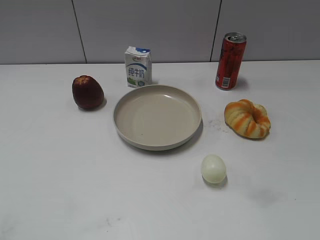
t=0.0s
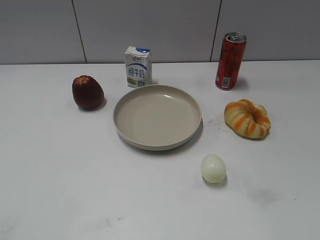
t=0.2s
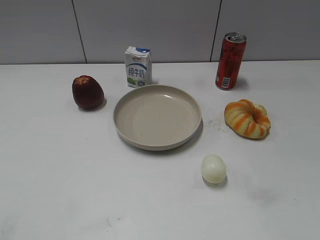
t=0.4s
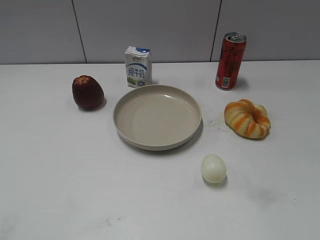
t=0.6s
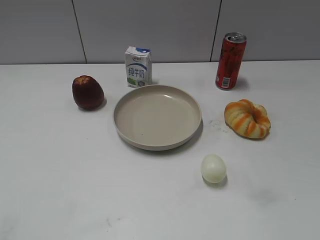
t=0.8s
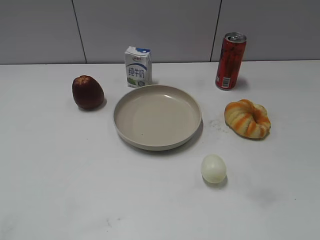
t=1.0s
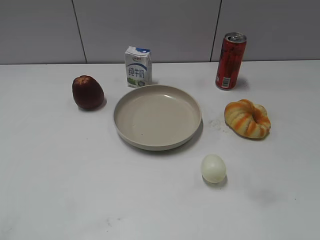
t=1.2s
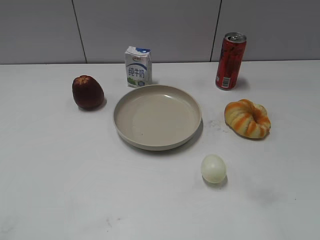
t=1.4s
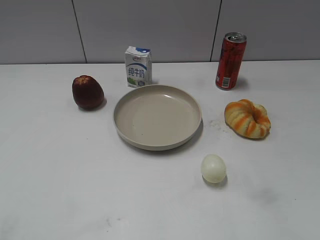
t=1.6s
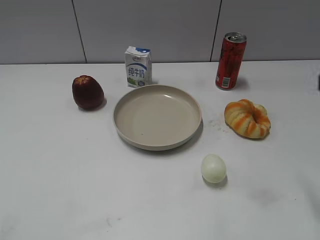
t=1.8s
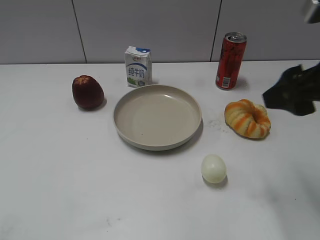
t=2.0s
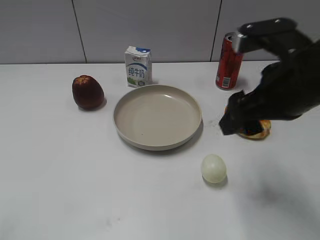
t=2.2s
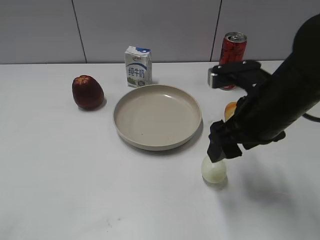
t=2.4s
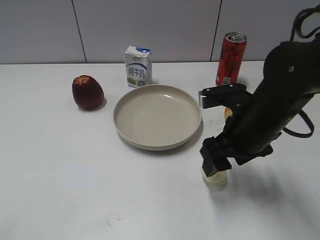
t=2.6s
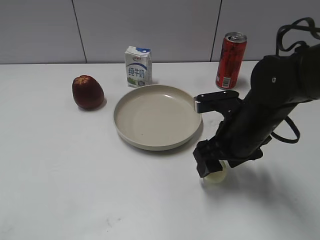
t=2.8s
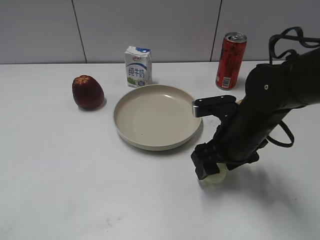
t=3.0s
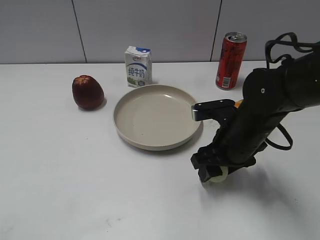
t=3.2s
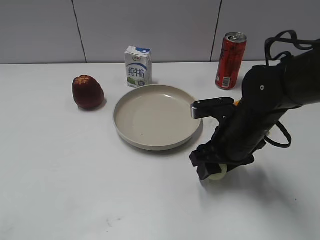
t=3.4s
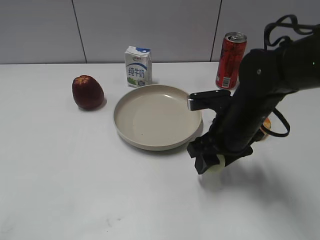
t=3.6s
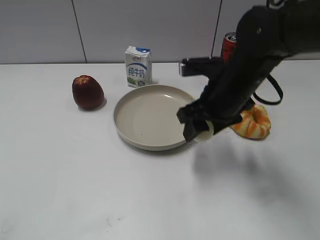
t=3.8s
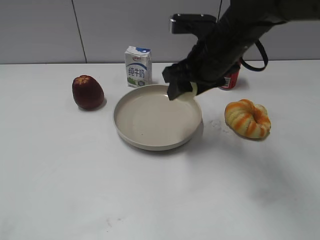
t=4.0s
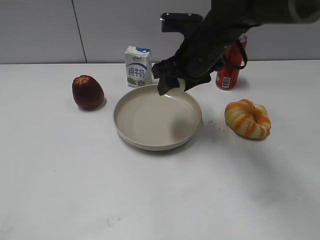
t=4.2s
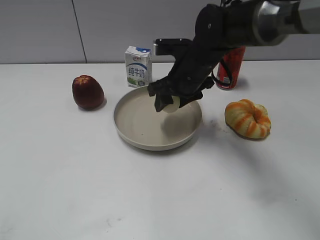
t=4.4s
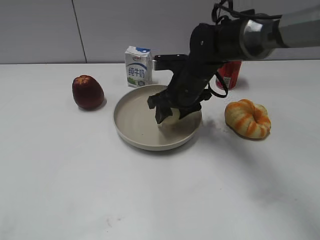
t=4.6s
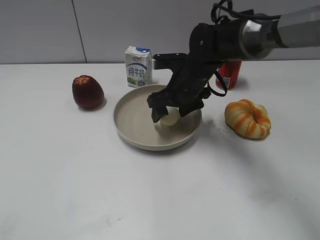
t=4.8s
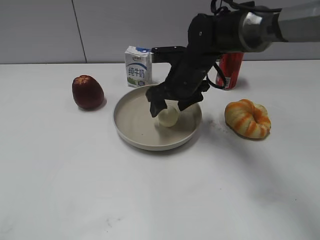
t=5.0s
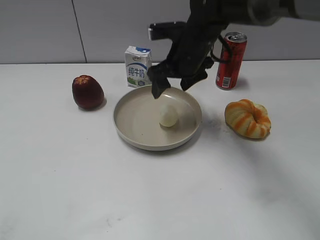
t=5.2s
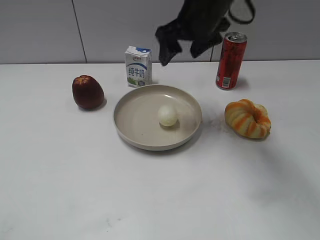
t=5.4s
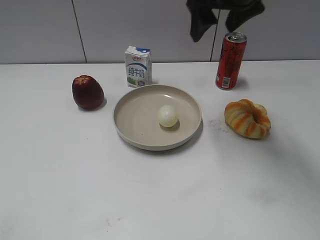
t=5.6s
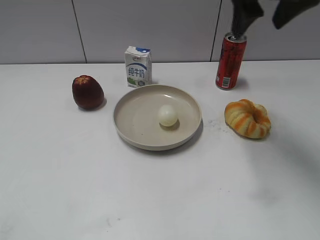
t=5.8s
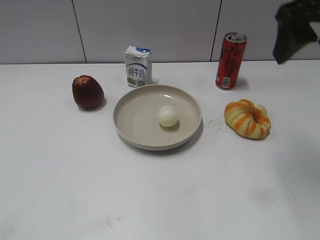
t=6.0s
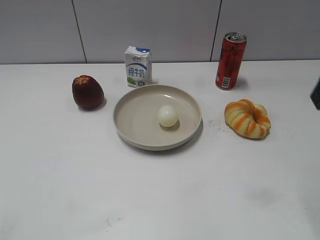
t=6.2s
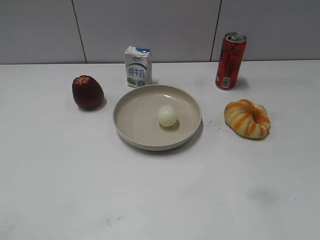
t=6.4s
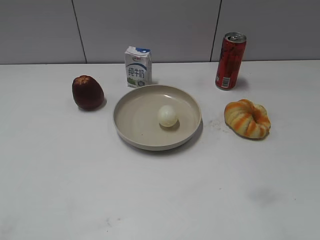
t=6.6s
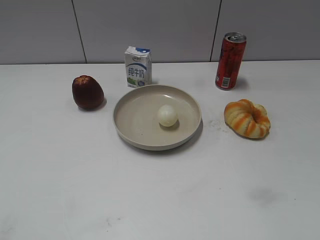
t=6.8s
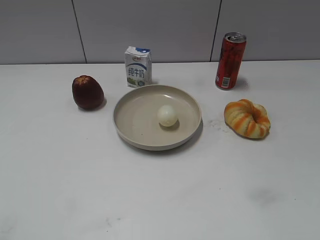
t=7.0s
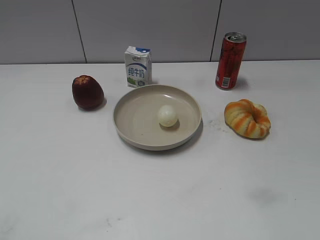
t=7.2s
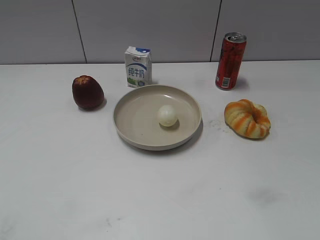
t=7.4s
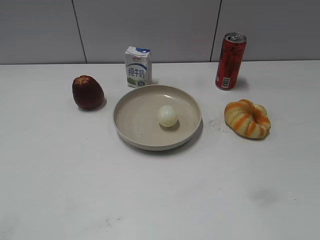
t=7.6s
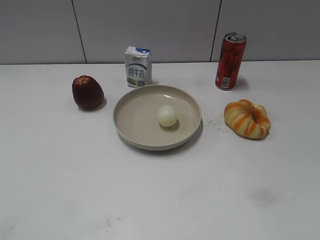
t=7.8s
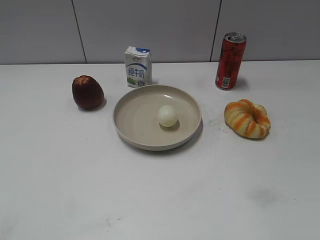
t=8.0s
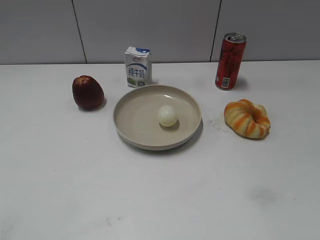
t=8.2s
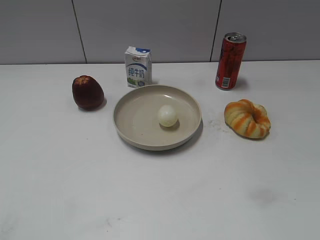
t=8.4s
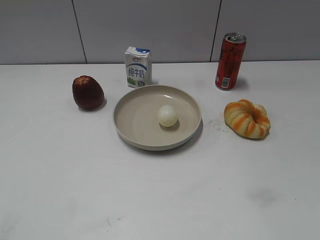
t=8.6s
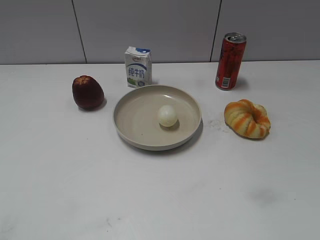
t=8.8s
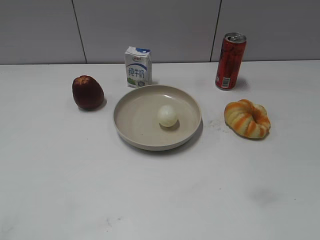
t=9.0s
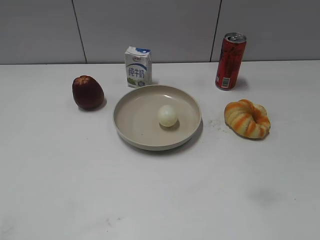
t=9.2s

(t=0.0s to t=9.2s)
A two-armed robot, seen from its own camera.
Step, t=1.0s - t=3.2s: Grasp the egg with right gripper.
Step, t=3.4s - t=5.2s: Place the egg on the plate with right gripper.
t=1.6s - t=3.0s: The right gripper goes some 30 cm downward, forward and to the left.
t=3.0s - t=4.6s: The right gripper shifts approximately 15 cm forward and to the left, and closes its fingers.
t=4.6s - t=6.2s: The right gripper goes about 30 cm upward, backward and to the right, and opens up.

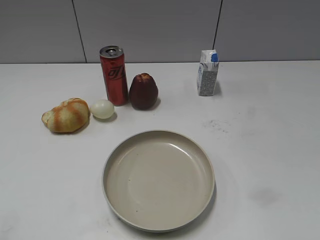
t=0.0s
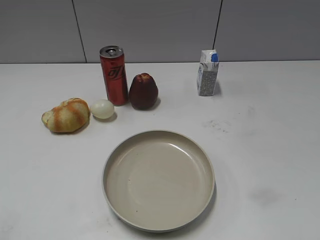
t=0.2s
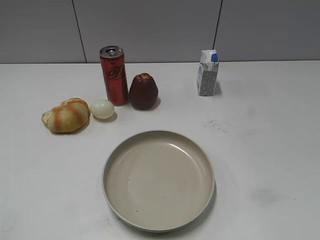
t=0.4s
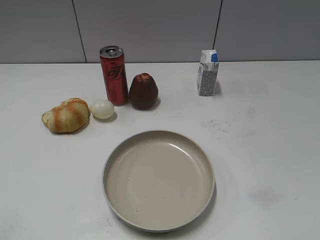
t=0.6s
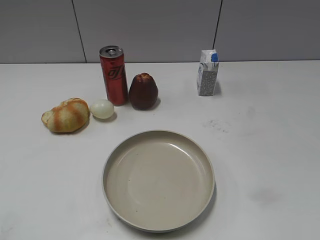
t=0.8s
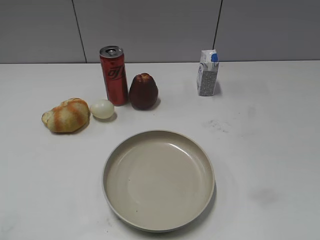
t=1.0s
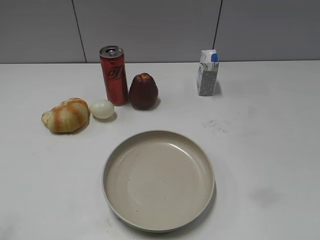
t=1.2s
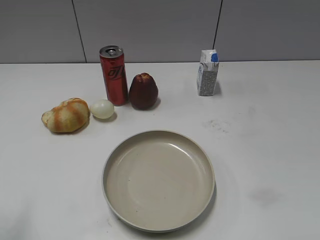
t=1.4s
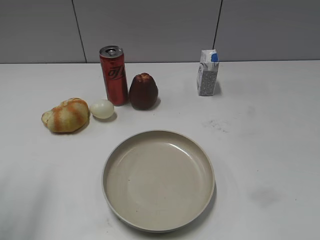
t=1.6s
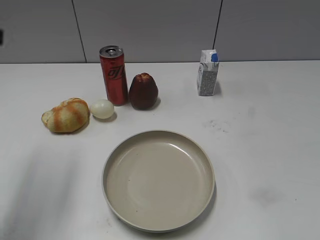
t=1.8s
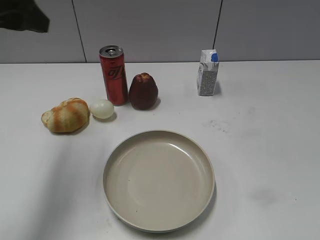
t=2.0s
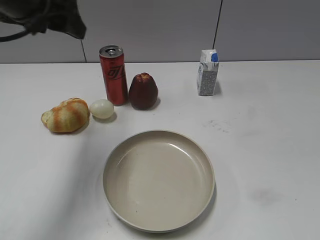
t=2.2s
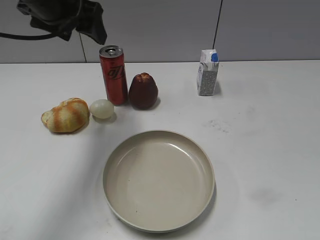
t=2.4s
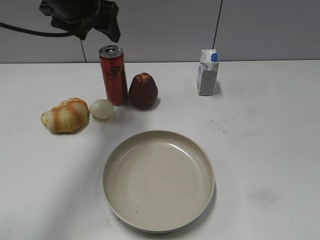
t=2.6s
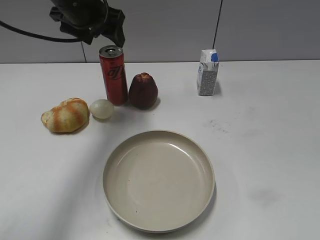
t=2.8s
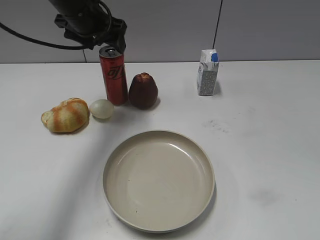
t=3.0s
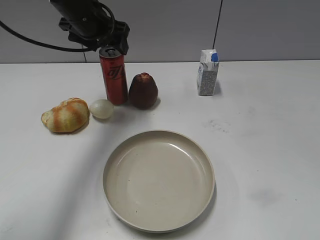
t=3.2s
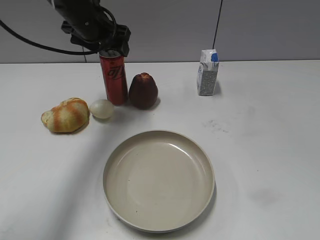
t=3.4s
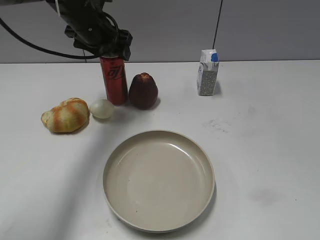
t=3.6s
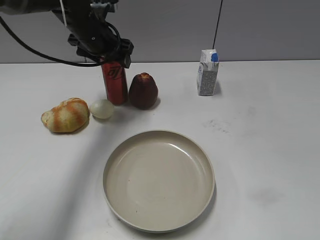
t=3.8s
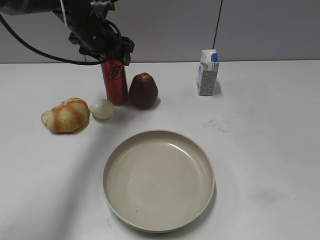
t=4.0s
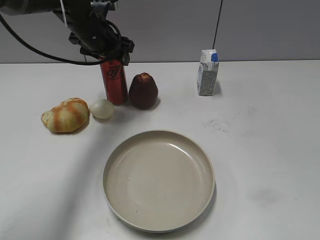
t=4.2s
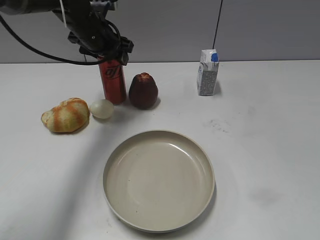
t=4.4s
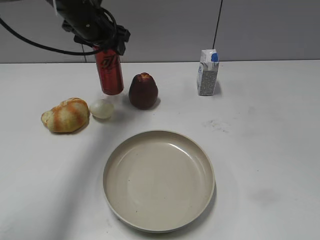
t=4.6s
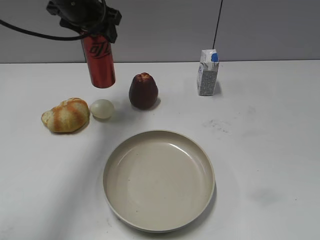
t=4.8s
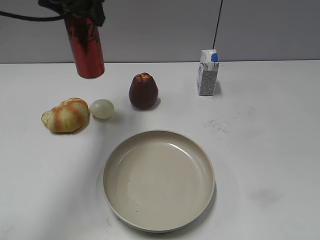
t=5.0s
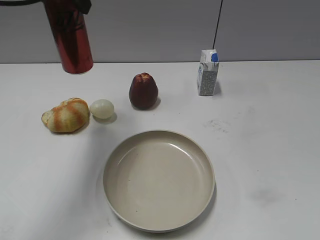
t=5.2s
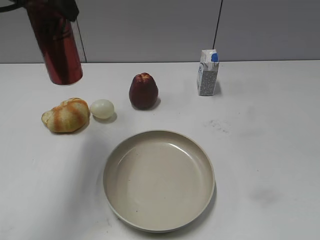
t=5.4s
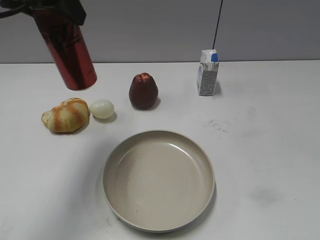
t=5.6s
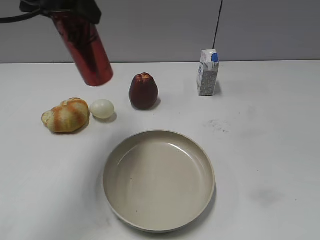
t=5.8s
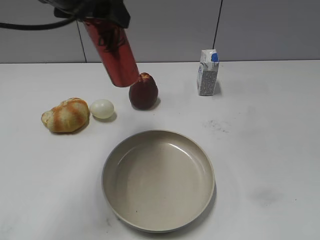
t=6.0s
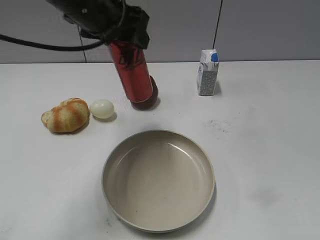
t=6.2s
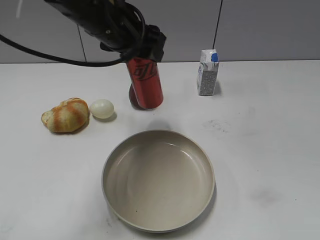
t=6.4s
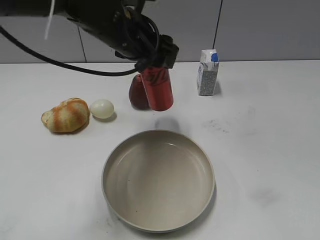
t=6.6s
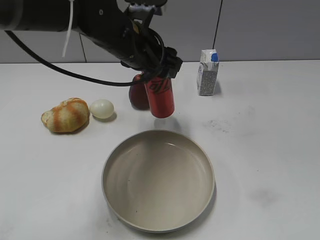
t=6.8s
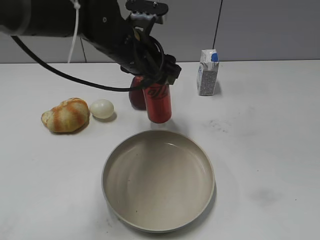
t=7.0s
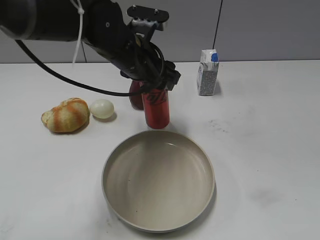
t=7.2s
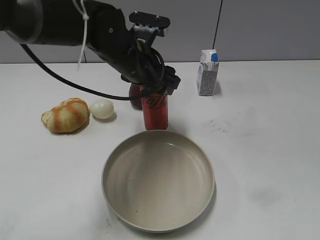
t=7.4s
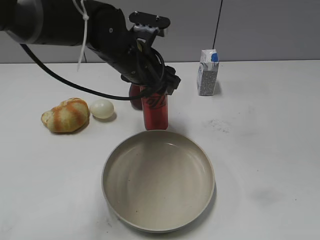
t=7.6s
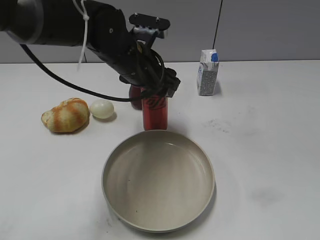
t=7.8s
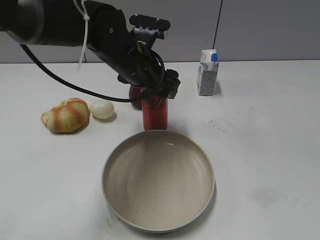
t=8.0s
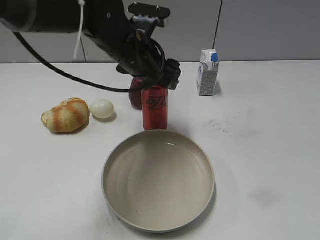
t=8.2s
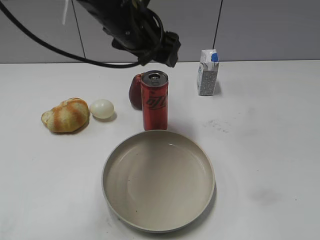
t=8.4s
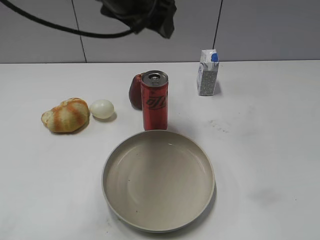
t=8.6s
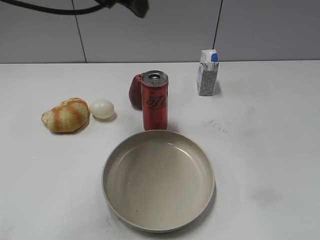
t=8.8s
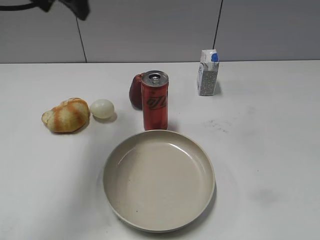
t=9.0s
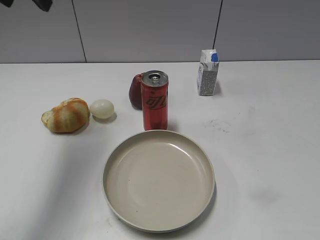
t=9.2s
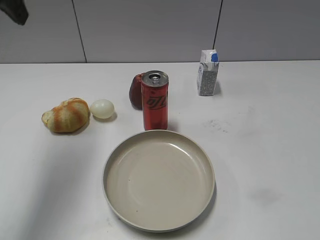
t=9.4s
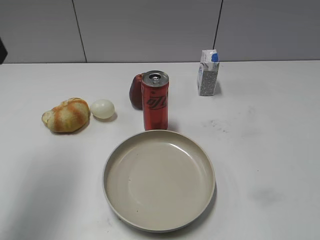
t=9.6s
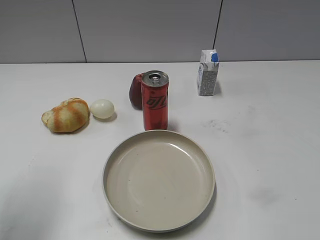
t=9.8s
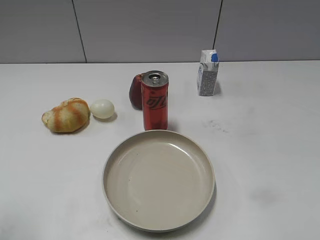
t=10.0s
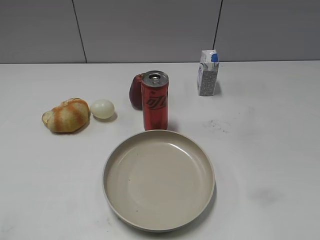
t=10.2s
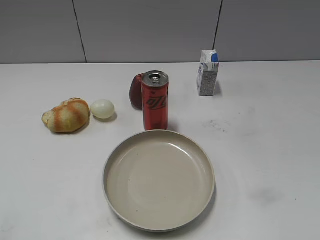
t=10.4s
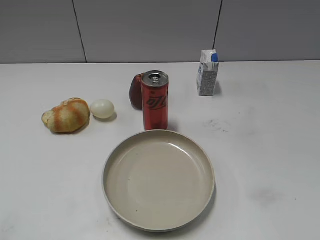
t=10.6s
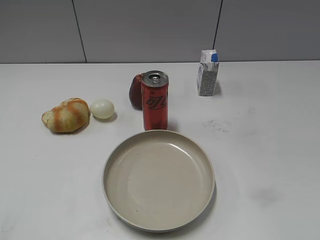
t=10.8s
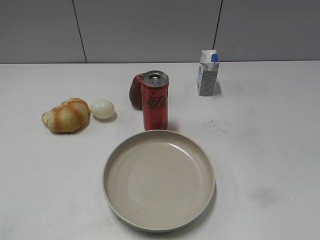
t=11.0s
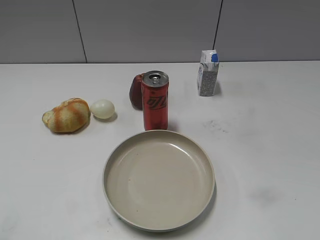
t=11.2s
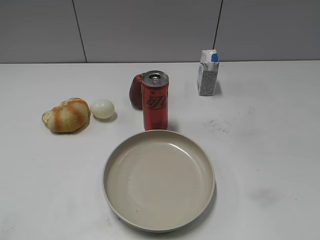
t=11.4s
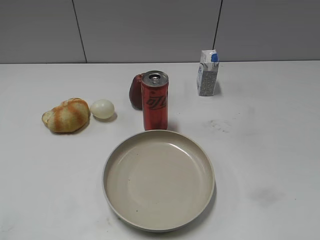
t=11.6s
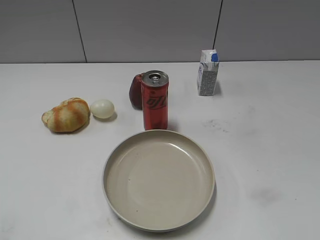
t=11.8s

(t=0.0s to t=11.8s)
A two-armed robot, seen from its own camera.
Step, t=0.6s - t=4.2s: Grasp the cola with left gripper.
Step, t=4.4s - t=8.4s: Place the cola on the table with left gripper.
t=1.4s - t=3.0s: The left gripper goes approximately 35 cm forward and to the right.
t=3.0s - t=4.4s: The left gripper changes place by approximately 5 cm, and closes.
t=4.4s - t=6.0s: The left gripper goes approximately 20 cm backward and upward.
t=6.0s - t=7.4s: The left gripper heads downward and to the right, covering some 15 cm.
t=7.4s - t=8.8s: The left gripper heads upward, covering about 15 cm, and opens.
t=8.8s - t=10.4s: The left gripper goes some 40 cm backward and to the left, and closes its fingers.
